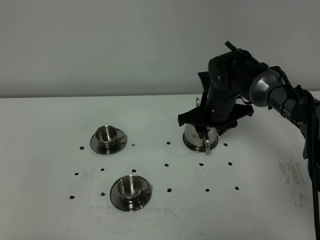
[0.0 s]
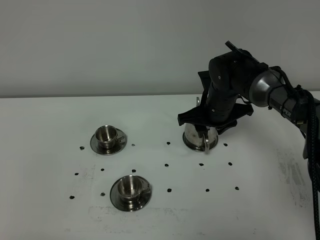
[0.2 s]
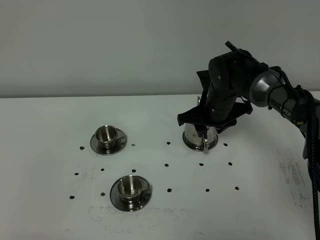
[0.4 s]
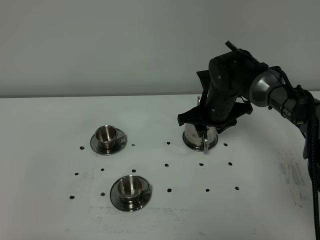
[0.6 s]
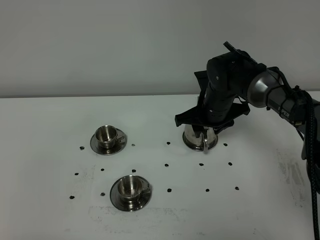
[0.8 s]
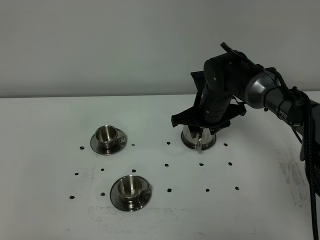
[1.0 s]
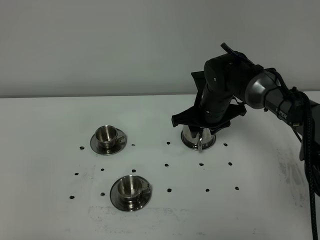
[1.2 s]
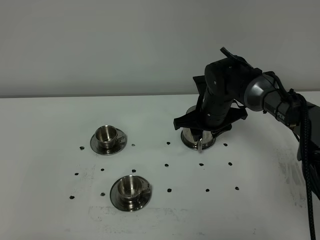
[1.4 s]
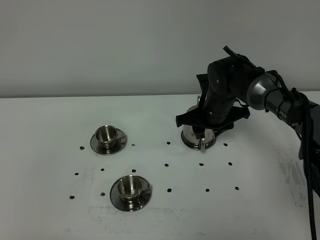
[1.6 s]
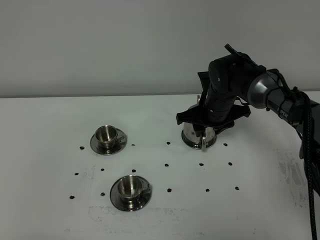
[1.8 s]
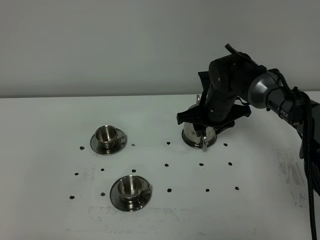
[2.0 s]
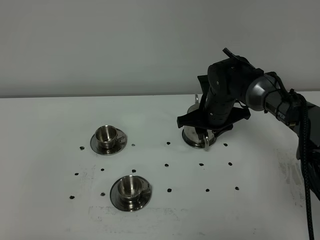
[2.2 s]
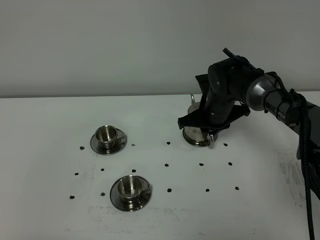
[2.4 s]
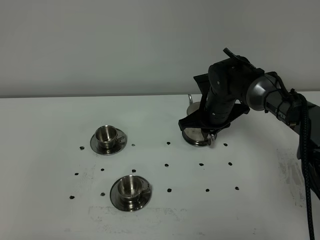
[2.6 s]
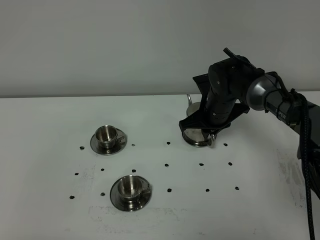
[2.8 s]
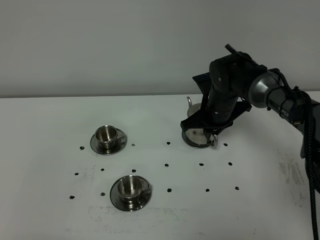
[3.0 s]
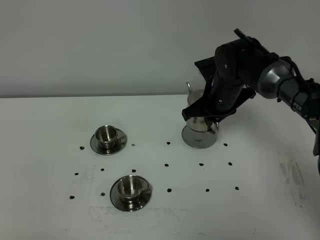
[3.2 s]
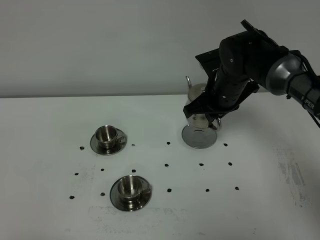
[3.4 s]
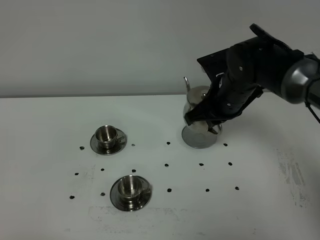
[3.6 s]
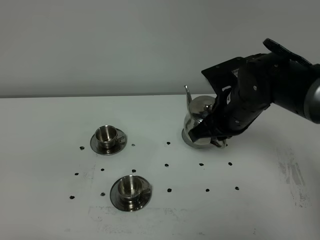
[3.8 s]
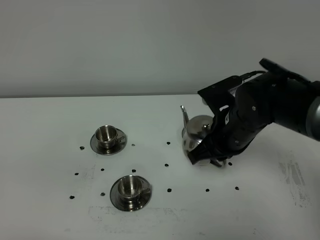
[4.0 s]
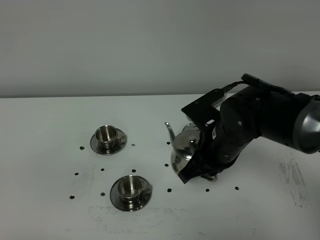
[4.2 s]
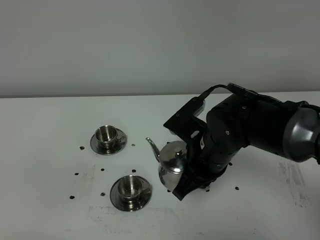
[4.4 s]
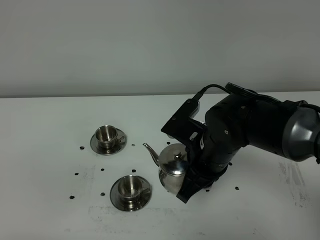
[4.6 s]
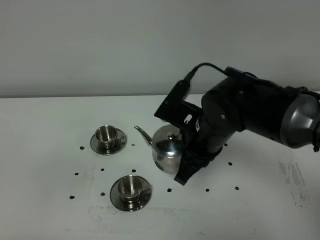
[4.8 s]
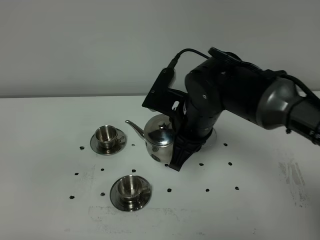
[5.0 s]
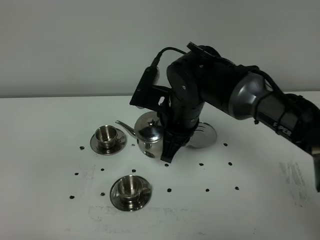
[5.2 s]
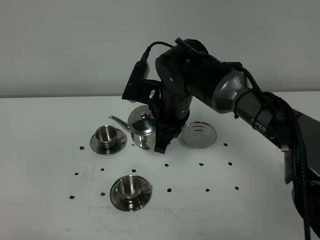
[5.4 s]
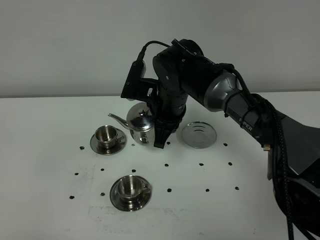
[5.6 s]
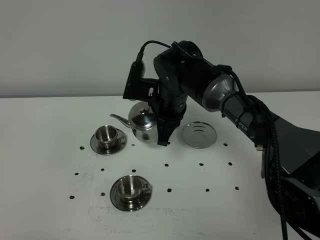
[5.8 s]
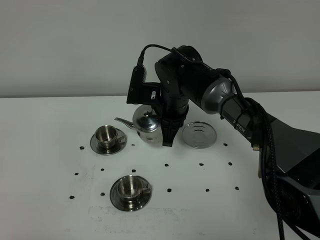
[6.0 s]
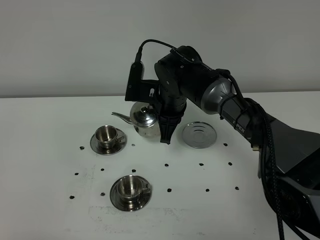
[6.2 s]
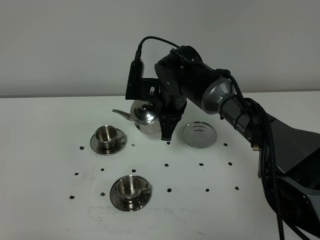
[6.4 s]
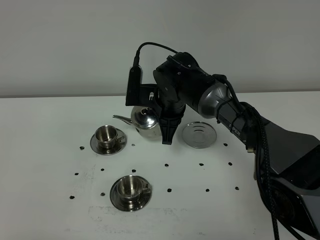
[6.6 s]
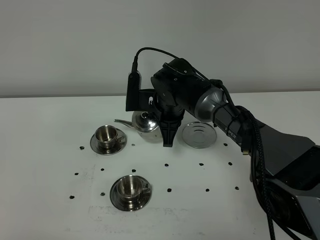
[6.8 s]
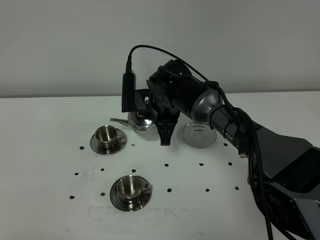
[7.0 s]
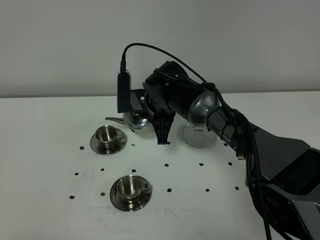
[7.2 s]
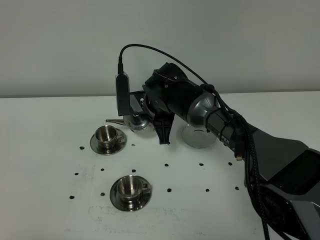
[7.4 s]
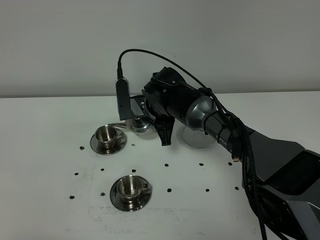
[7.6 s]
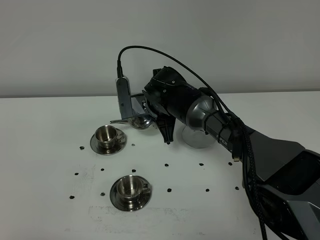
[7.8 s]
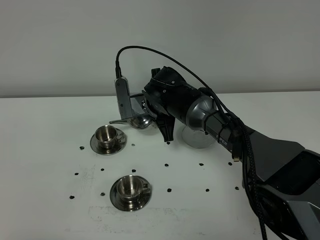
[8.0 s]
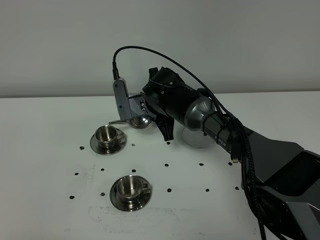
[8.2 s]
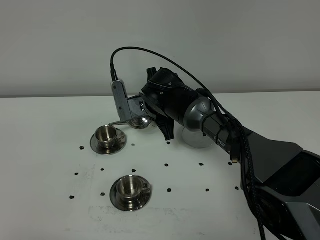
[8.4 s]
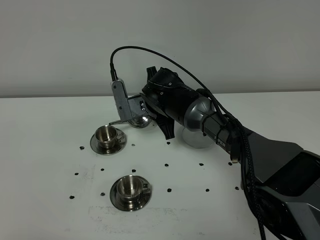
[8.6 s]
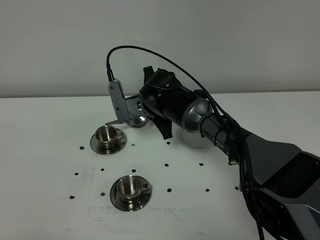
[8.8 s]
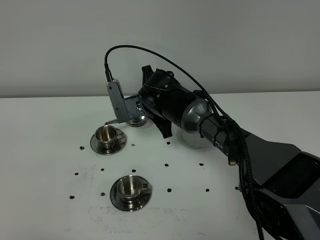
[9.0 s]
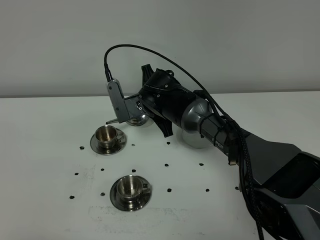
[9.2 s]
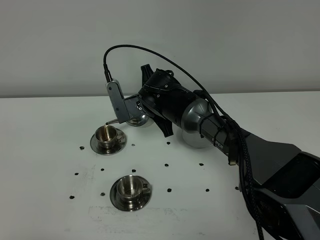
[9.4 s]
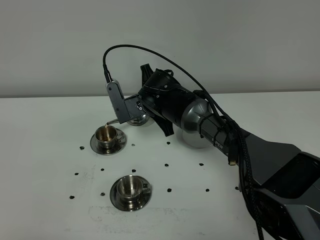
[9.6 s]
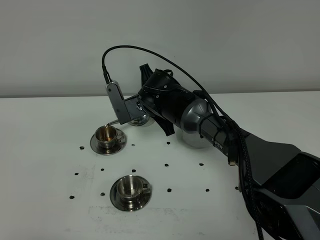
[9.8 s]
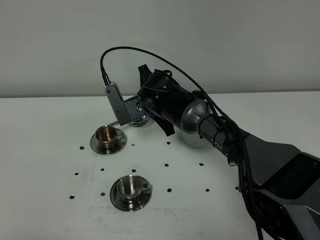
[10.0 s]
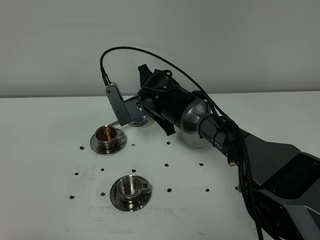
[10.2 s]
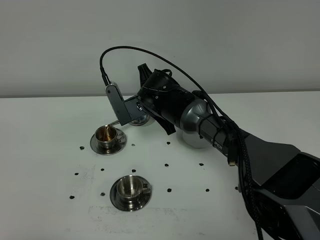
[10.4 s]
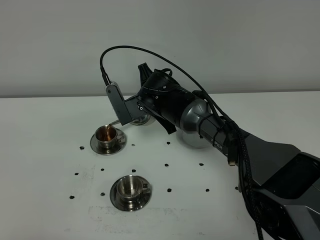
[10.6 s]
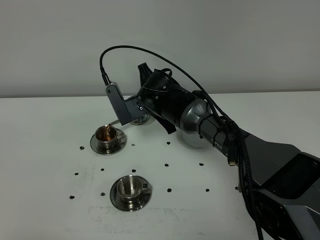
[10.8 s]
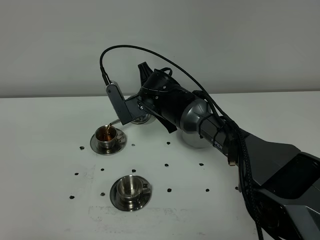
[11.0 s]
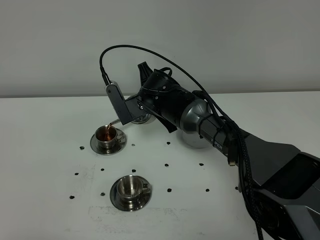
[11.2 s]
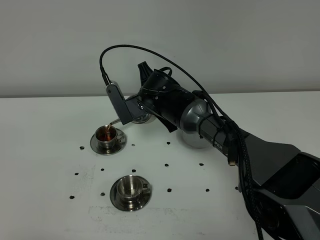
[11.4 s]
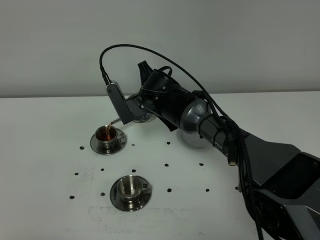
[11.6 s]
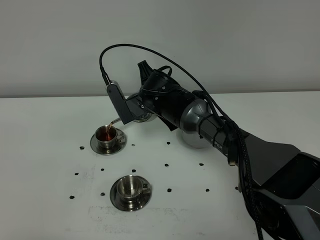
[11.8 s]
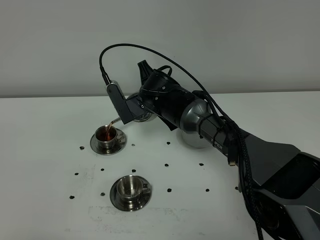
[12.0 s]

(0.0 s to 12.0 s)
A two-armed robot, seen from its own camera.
Task of the whole recording: grasp the stainless steel teapot and pour the tea into the two stainless steel teacups one by one, put the stainless steel teapot back in its original place.
Step, 0.0 s - 3.0 s: Pick up the teapot with the right gripper.
0.0 s - 1.6 s: The grippers move only a little.
1.6 s - 3.0 s: The right gripper closes up.
3.0 s - 4.4 s: The right gripper travels backward by about 15 cm.
4.4 s - 6.0 s: The right gripper goes some 15 cm forward and to the left.
7.6 s - 10.4 s: The grippers stay close to where they were, moving slightly.
10.4 s - 12.0 s: Both grippers stay about where they are.

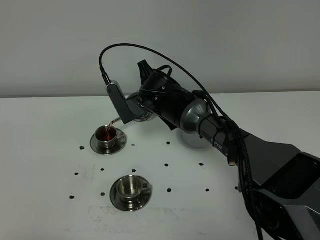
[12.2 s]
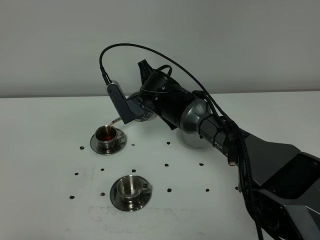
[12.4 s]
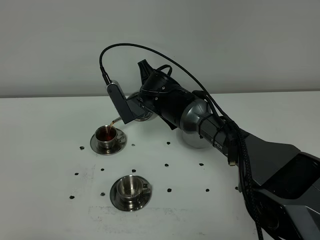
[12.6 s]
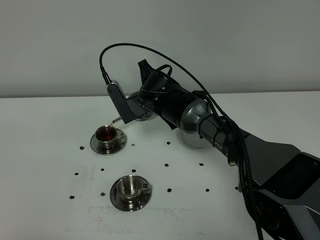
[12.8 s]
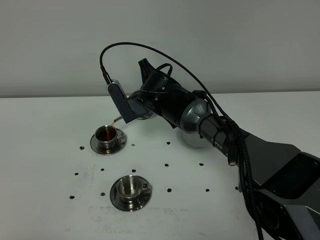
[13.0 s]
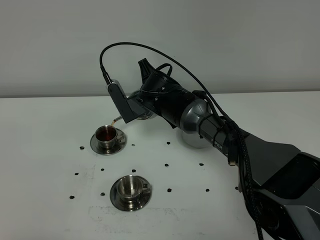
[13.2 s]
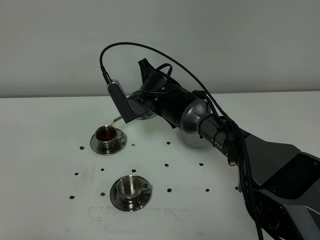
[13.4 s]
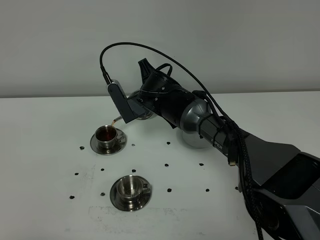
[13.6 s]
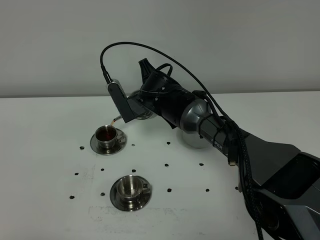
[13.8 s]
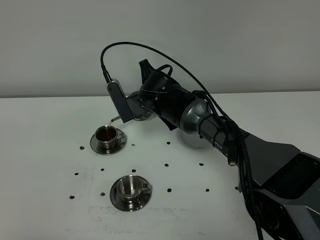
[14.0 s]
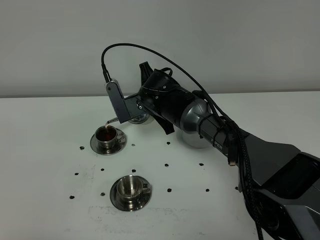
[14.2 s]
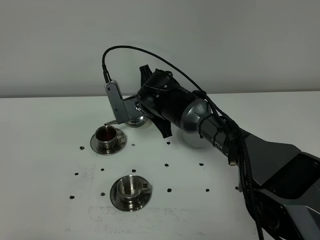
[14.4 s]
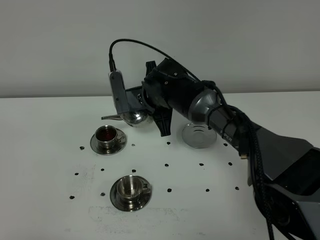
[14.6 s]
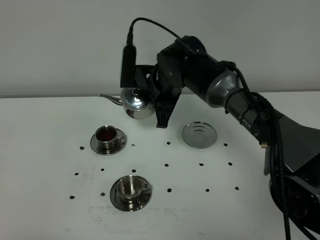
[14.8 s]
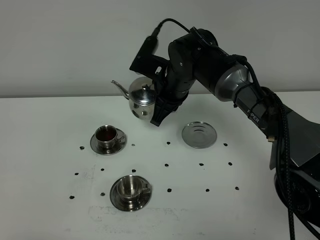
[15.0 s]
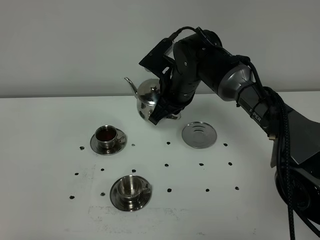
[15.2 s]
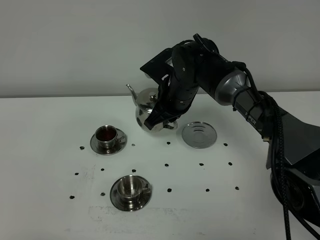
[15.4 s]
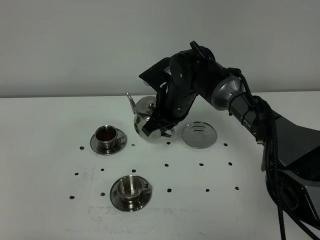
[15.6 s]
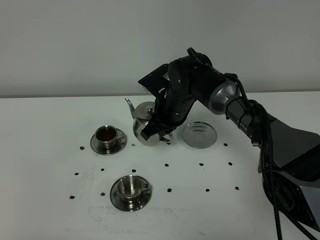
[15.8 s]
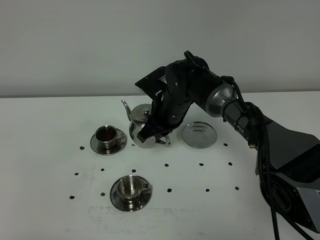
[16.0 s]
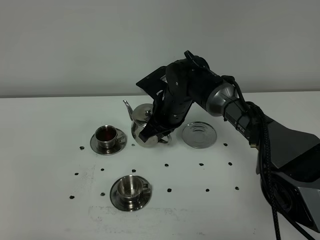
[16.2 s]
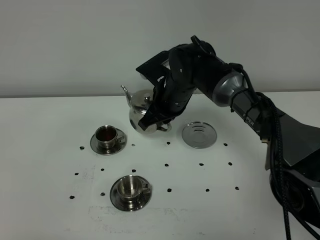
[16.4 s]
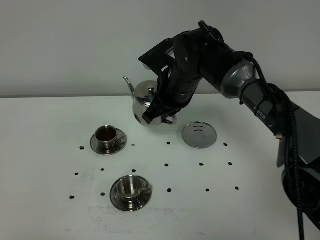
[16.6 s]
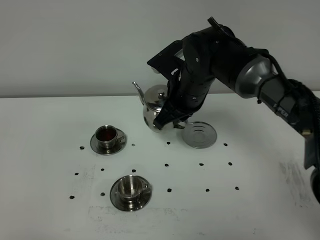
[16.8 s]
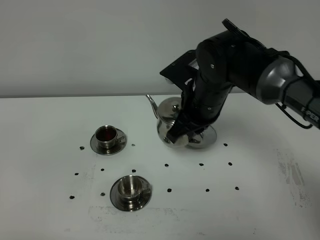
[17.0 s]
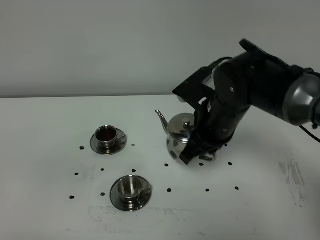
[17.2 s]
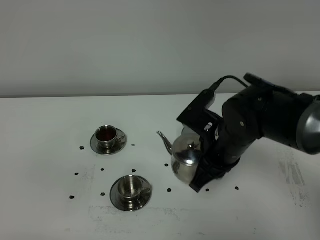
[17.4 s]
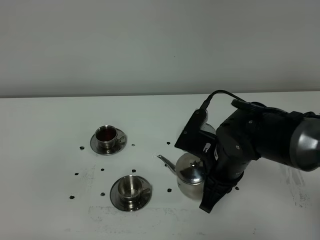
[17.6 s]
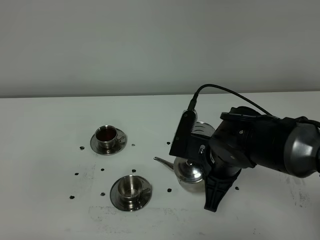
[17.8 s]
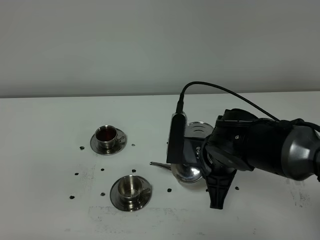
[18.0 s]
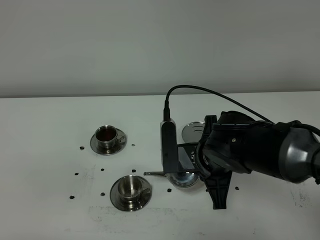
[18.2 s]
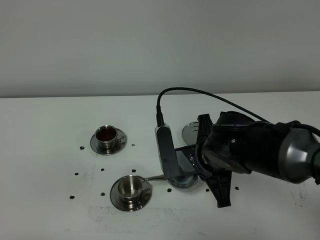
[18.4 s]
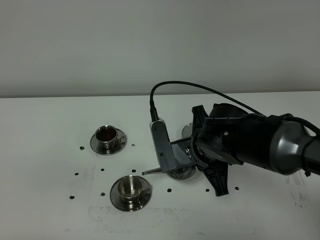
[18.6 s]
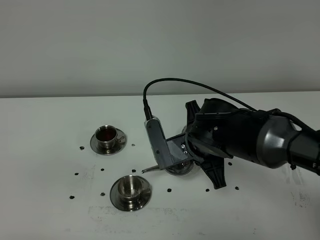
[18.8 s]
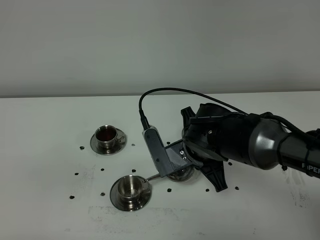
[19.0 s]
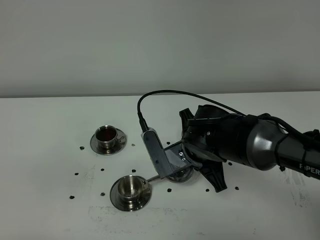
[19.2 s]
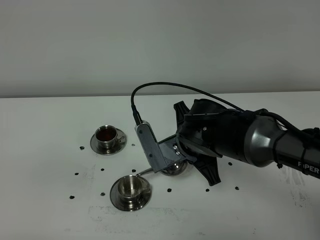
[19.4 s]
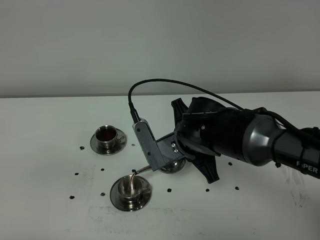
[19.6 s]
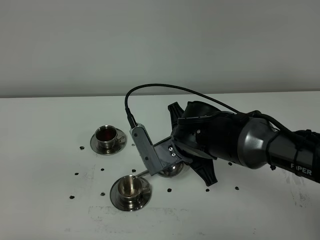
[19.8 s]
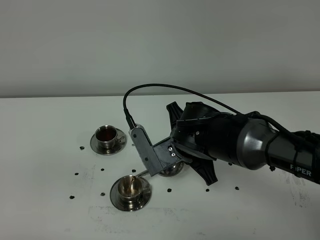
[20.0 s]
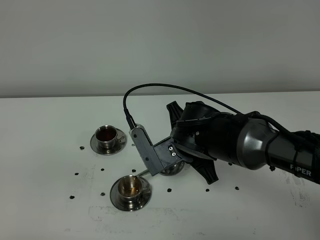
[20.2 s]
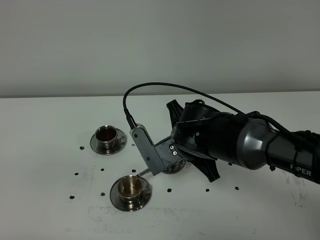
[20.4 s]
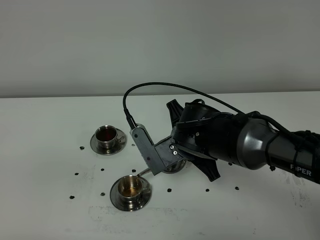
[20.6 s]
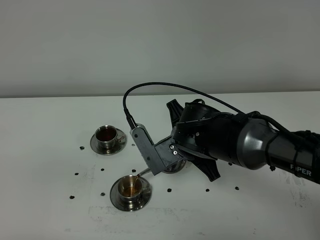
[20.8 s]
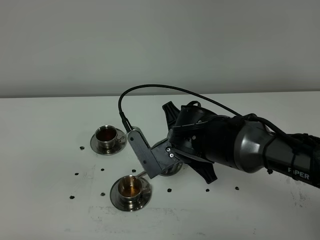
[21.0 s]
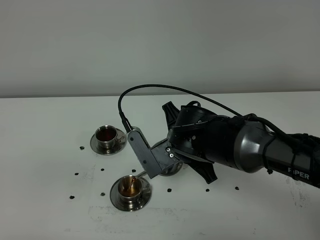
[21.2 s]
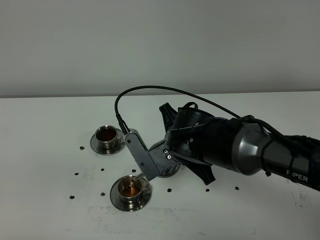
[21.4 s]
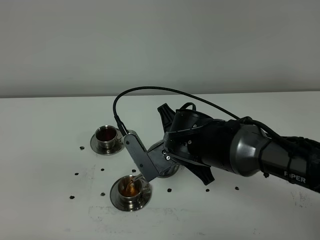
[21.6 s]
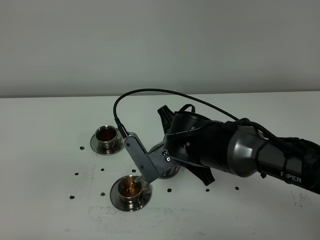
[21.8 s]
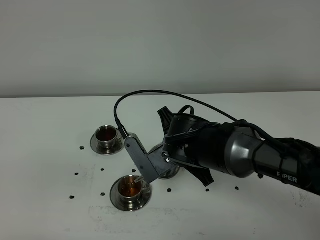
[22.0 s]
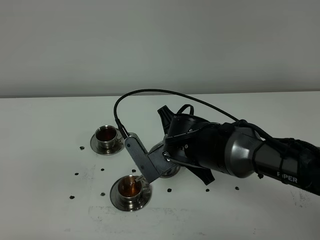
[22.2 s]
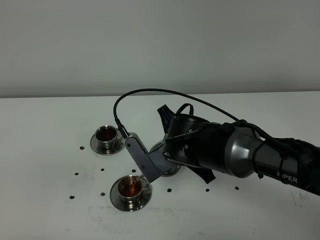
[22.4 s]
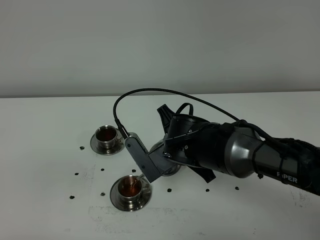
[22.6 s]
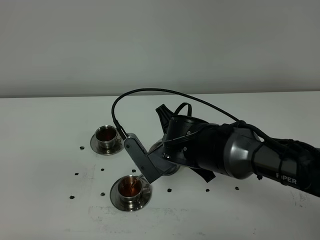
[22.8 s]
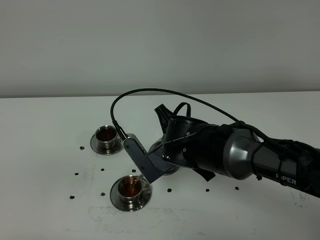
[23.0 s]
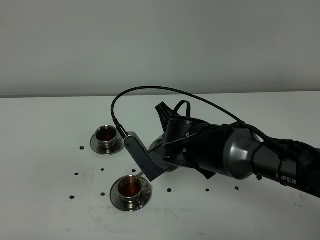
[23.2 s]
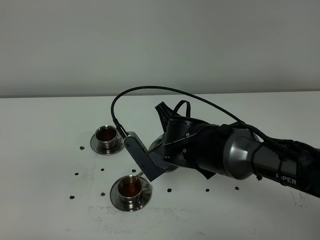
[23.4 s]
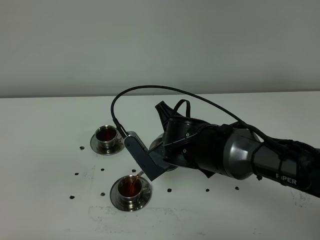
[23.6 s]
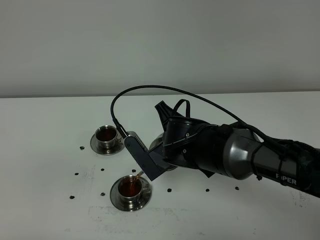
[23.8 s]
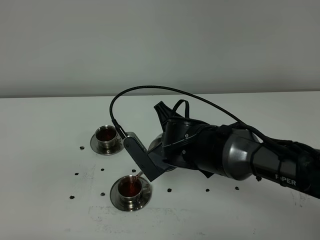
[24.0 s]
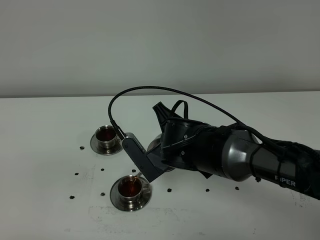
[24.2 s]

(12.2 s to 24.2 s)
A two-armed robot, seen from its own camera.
Task of the whole recording: grasp the stainless steel teapot and pour the tea into the two stainless steel teacups one by one, put the stainless steel teapot back in its original place.
12.2 s - 13.8 s: Both grippers stay put.
13.8 s - 15.2 s: The right gripper moves roughly 5 cm.
15.2 s - 16.6 s: The right gripper moves approximately 5 cm downward and comes back.
16.6 s - 18.2 s: The right gripper moves backward, some 15 cm.
19.8 s - 22.6 s: The grippers make only small movements.
22.6 s - 24.2 s: The two grippers keep their place.
